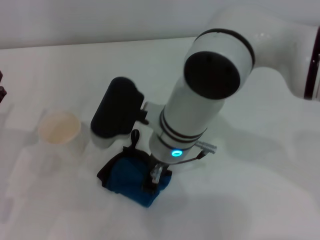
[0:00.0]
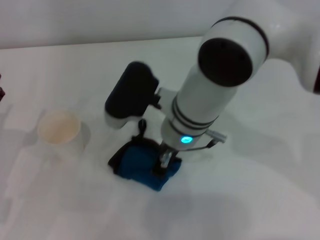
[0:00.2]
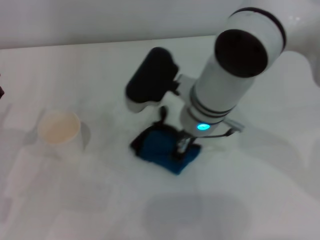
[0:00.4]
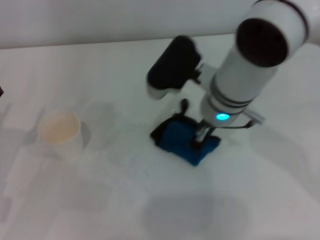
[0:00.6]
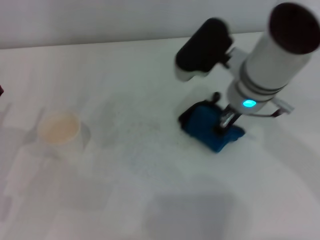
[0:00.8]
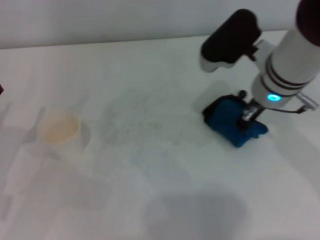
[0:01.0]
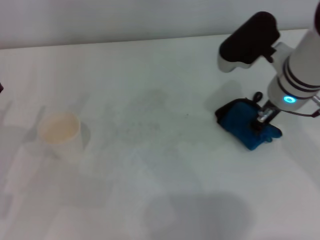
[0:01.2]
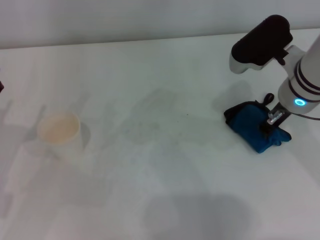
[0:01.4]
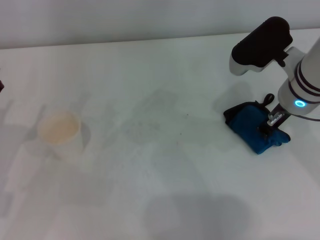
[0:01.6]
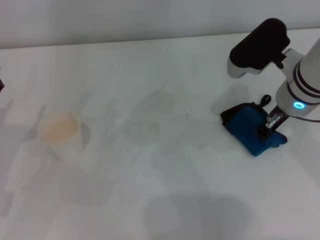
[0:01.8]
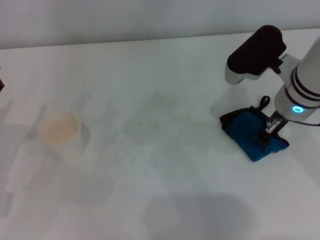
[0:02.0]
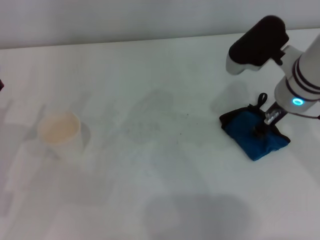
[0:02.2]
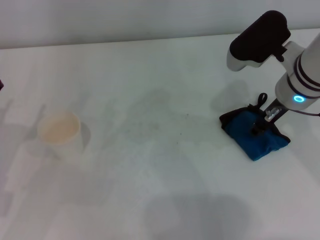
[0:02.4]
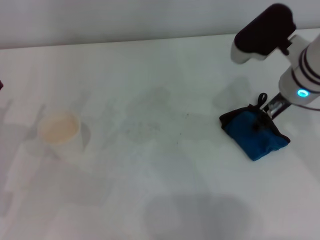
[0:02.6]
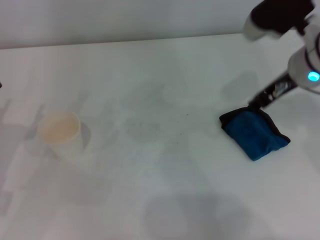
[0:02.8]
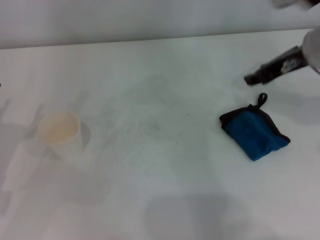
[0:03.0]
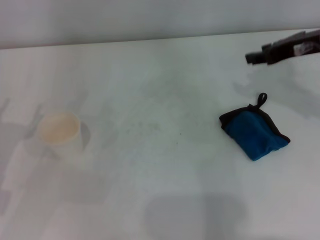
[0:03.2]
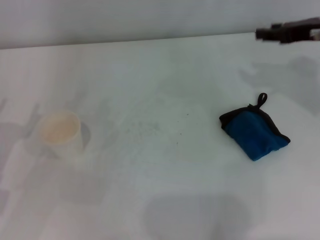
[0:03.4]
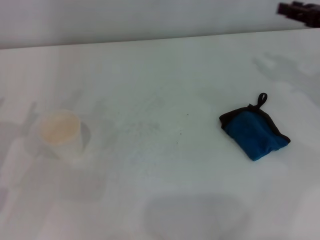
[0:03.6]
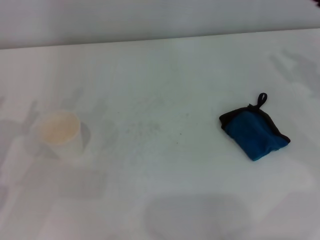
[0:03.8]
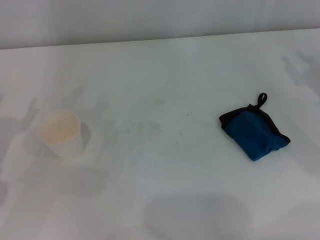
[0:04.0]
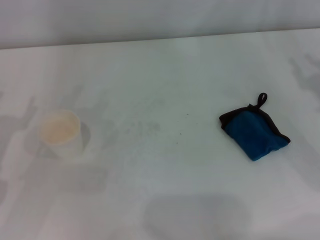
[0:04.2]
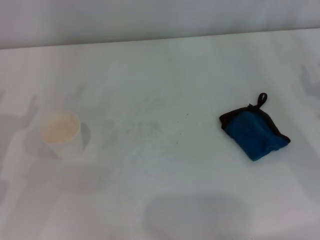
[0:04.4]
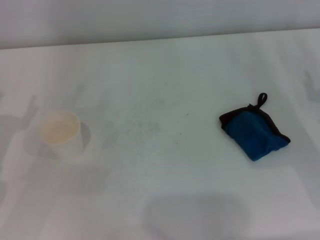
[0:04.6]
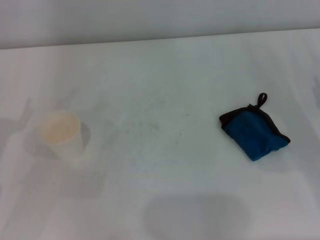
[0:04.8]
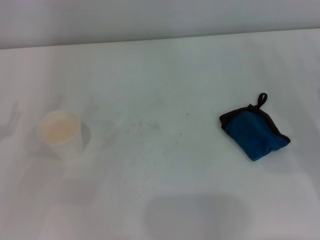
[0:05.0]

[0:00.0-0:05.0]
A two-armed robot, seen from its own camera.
Step, 0:01.4 to 0:02.0: Place the rag on the table with the right gripper.
0:00.0 to 0:01.6: The right gripper heads to the right, covering about 20 cm.
0:01.6 to 0:03.4: The right gripper shifts roughly 10 cm to the right, and opens its fingers.
0:03.4 to 0:05.0: The right gripper moves downward, backward and to the right, about 20 cm.
